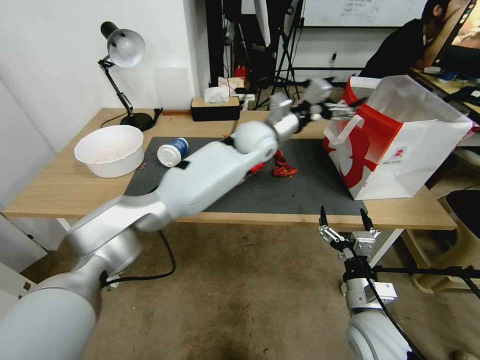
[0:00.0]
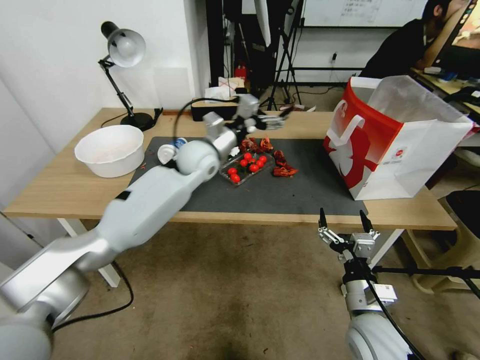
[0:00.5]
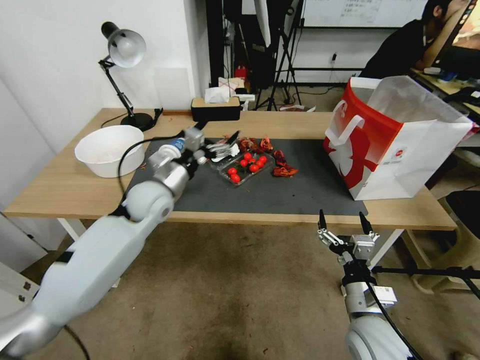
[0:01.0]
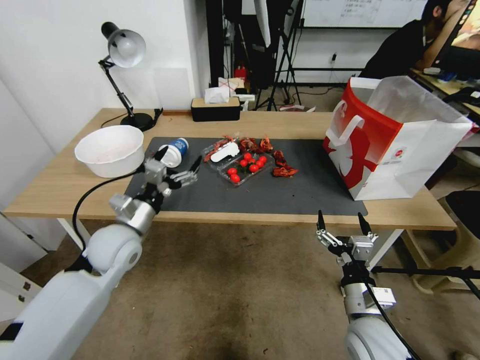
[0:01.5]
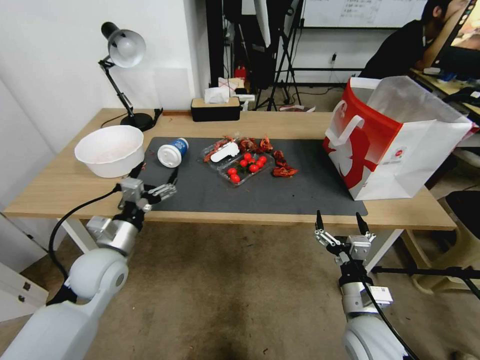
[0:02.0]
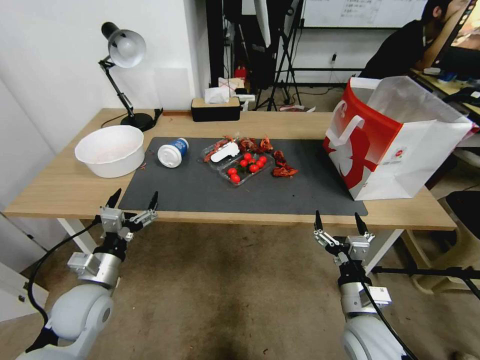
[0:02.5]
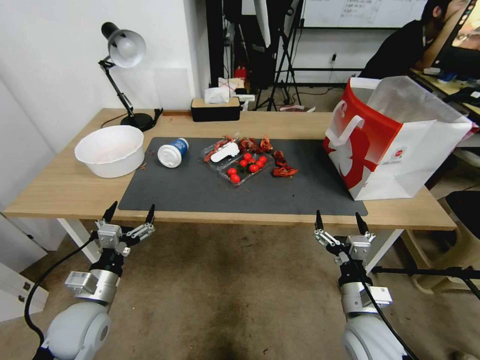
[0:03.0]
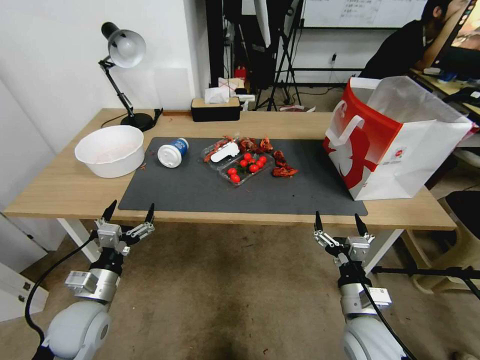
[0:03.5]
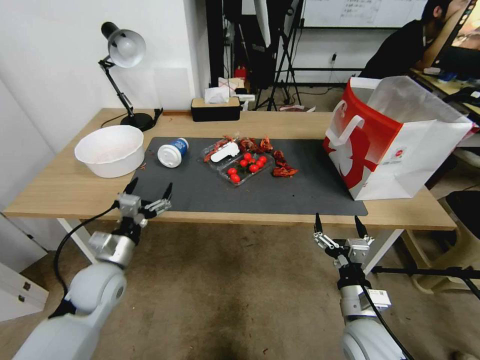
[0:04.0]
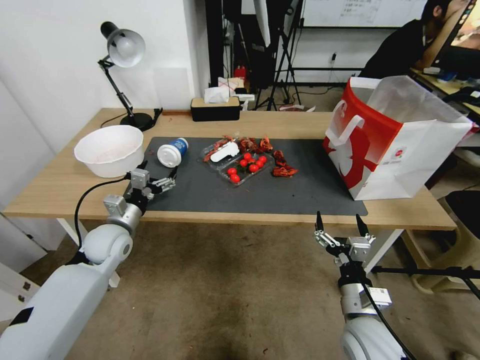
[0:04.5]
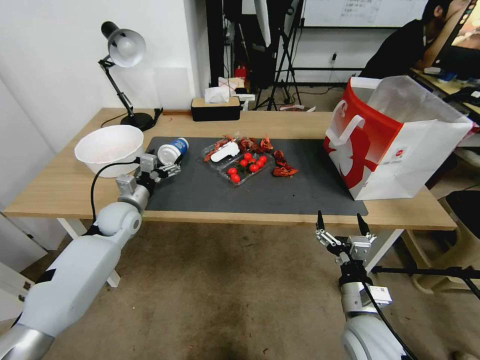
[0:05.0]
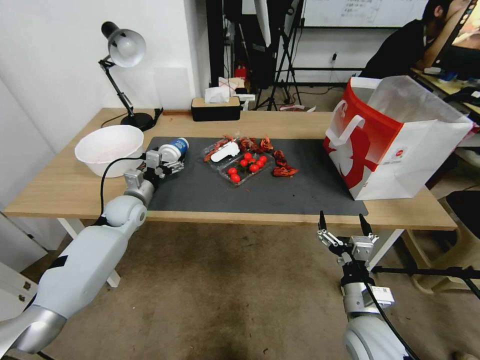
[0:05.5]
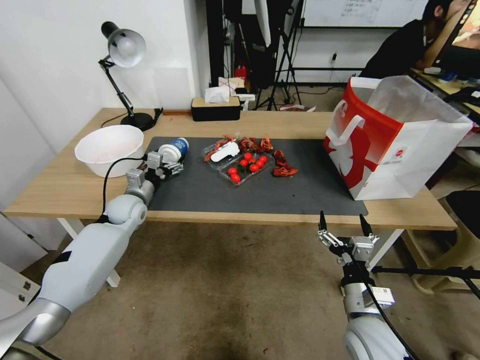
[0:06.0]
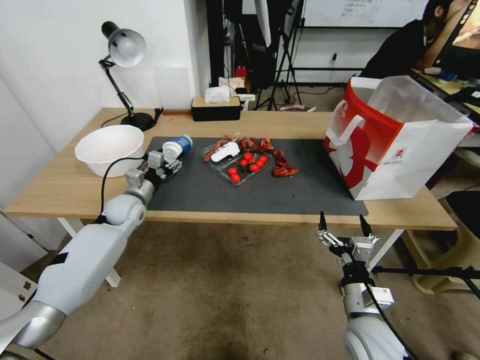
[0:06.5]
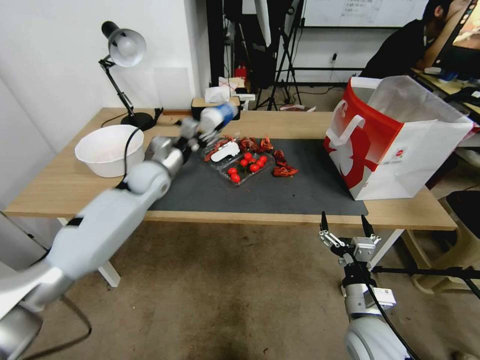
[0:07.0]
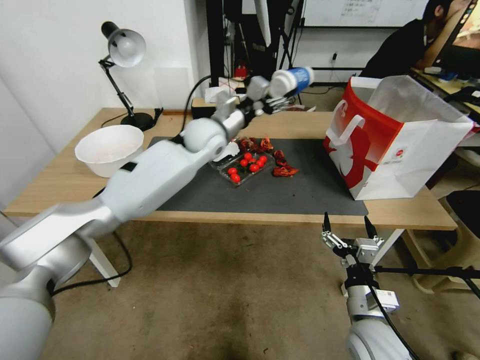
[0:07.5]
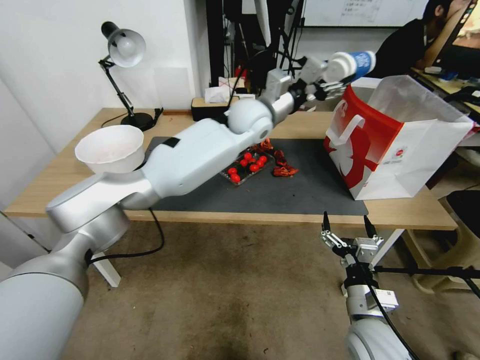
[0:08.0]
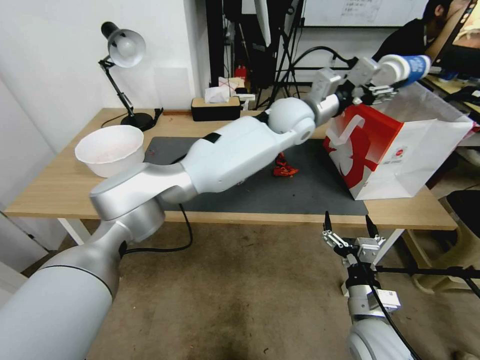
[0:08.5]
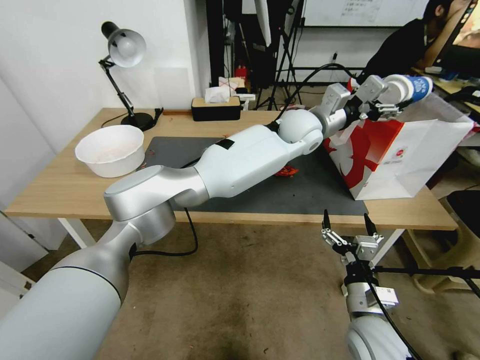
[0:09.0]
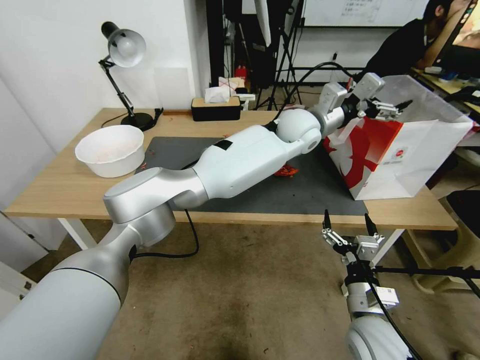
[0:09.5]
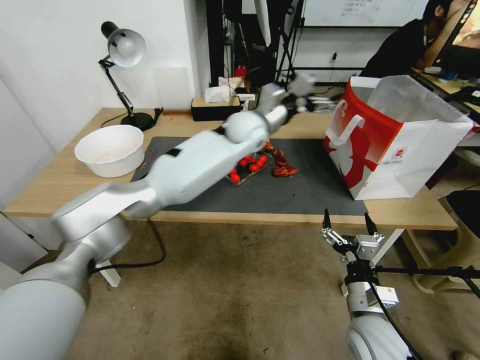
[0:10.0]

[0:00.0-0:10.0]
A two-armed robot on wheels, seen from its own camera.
0:00.0 to 0:02.0: The left gripper goes approximately 40 cm to the left, backward and downward.
0:02.0 to 0:04.0: The left gripper goes backward and returns, roughly 10 cm each way.
0:04.0 to 0:06.0: The left gripper heads forward, covering roughly 20 cm.
0:06.0 to 0:08.0: The left gripper shifts approximately 35 cm to the right and upward, and closes its fingers.
0:08.0 to 0:10.0: The left gripper shifts some 10 cm to the right, and opens up.

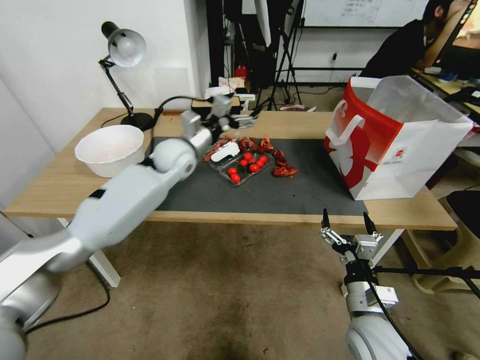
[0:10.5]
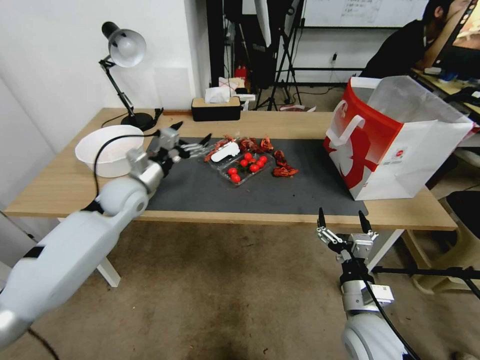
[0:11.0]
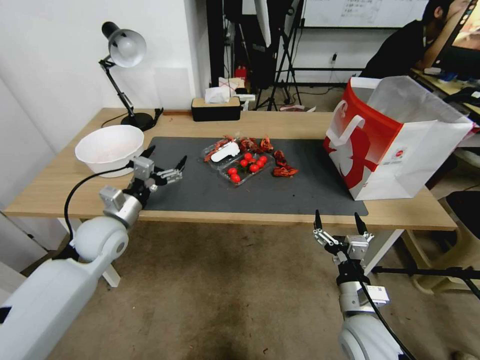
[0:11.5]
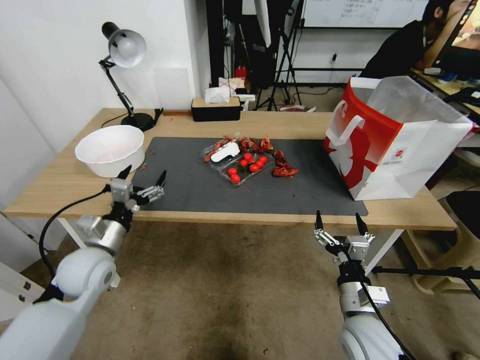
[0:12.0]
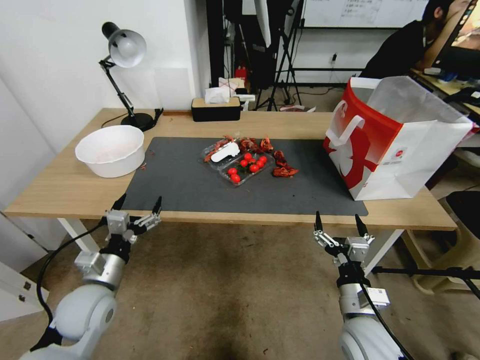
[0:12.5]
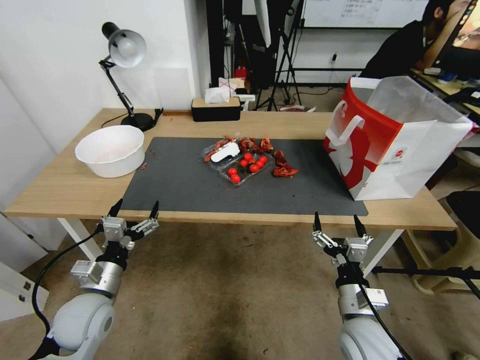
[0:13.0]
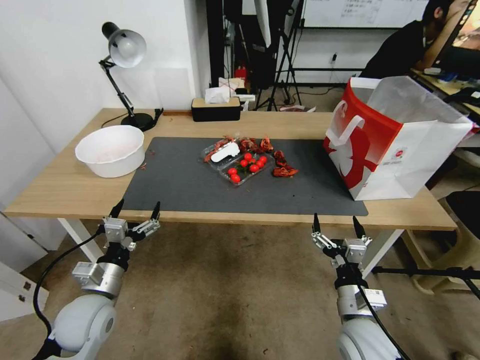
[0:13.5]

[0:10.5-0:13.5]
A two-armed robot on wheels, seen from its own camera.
0:10.5 to 0:12.0: The left gripper moves backward, to the left and downward, approximately 30 cm.
0:12.0 to 0:13.5: The left gripper is displaced backward and downward by approximately 10 cm.

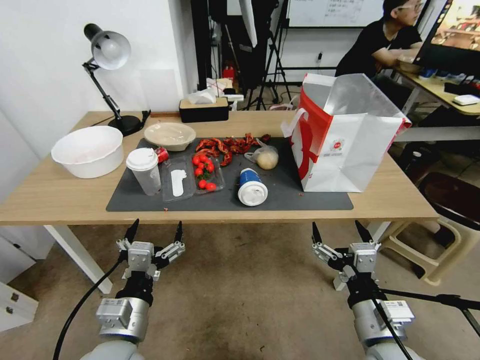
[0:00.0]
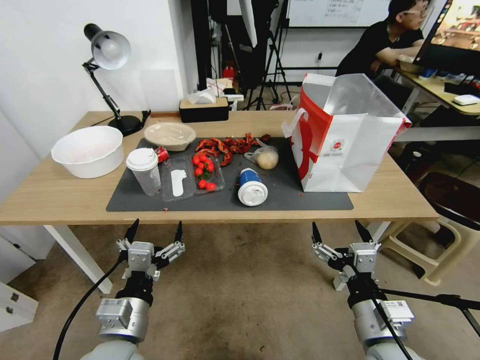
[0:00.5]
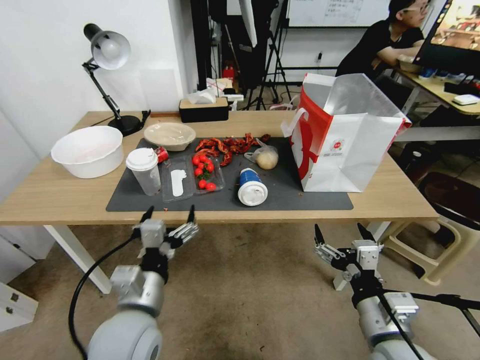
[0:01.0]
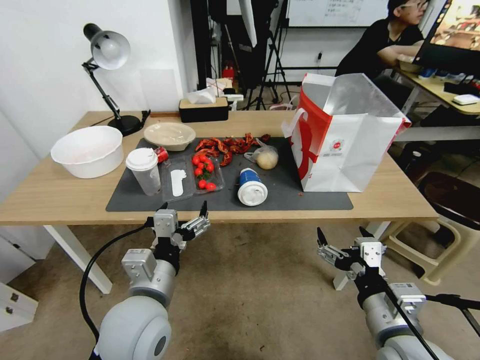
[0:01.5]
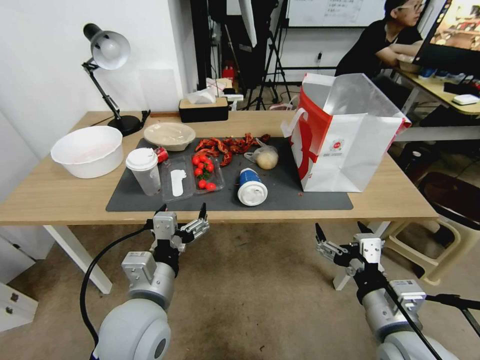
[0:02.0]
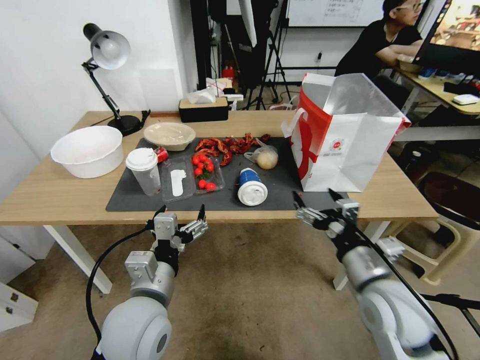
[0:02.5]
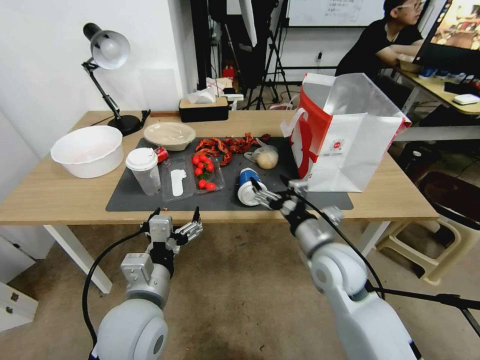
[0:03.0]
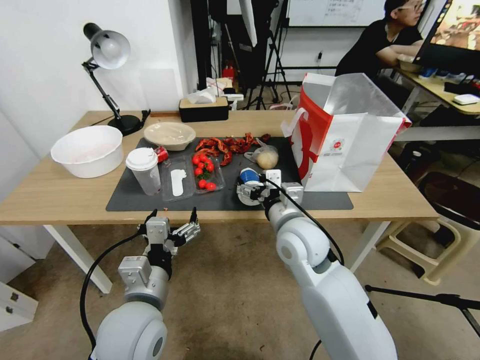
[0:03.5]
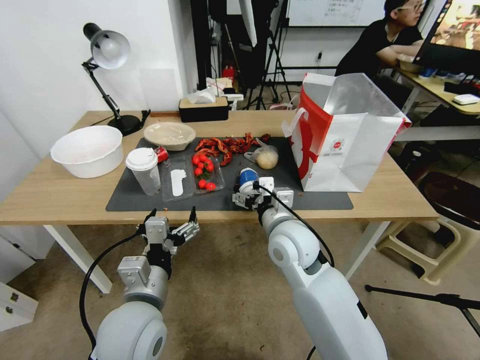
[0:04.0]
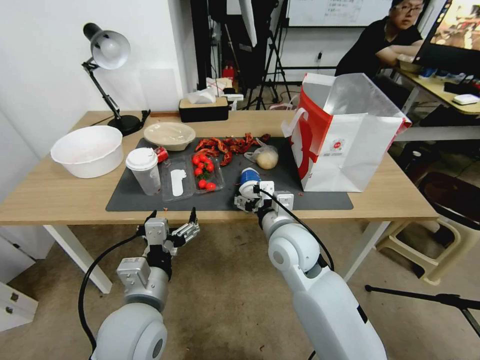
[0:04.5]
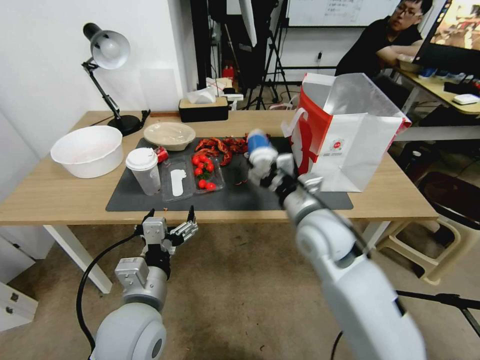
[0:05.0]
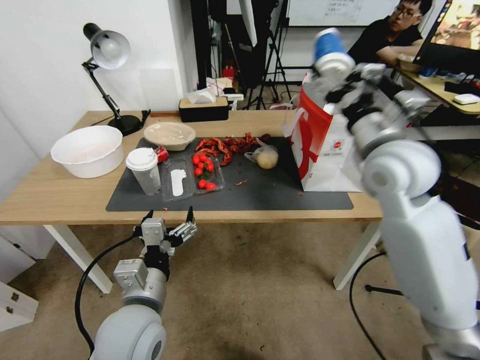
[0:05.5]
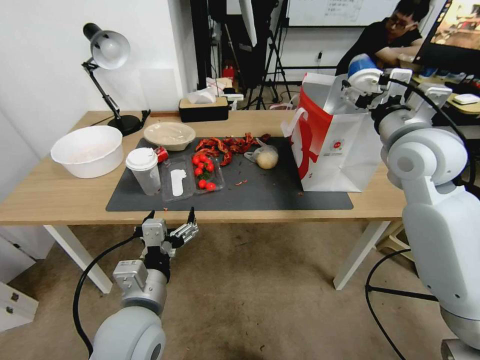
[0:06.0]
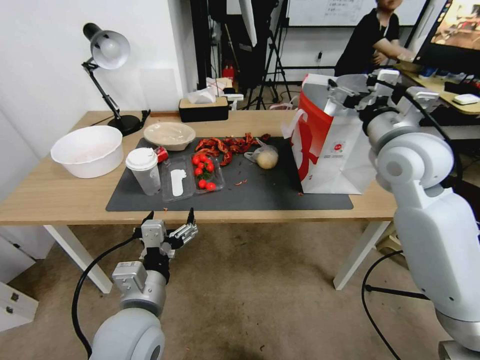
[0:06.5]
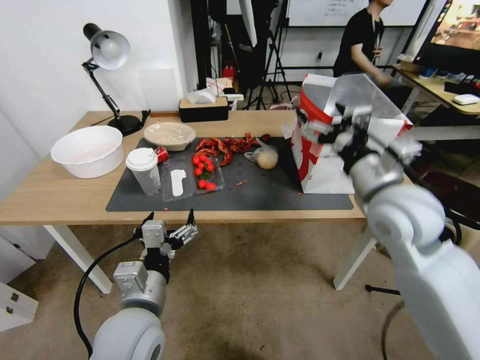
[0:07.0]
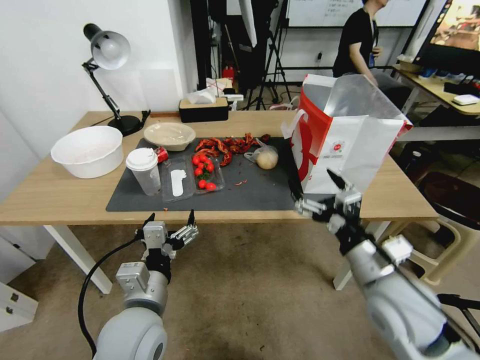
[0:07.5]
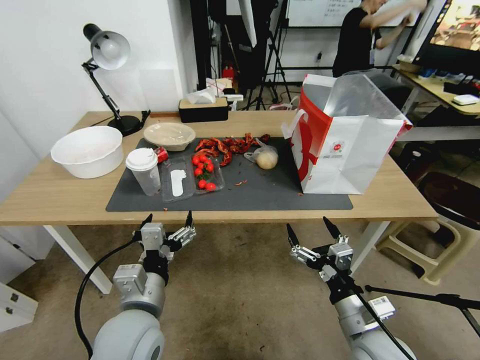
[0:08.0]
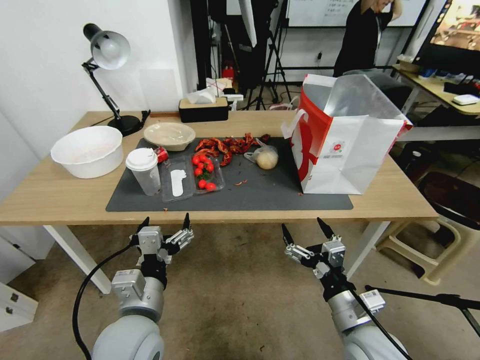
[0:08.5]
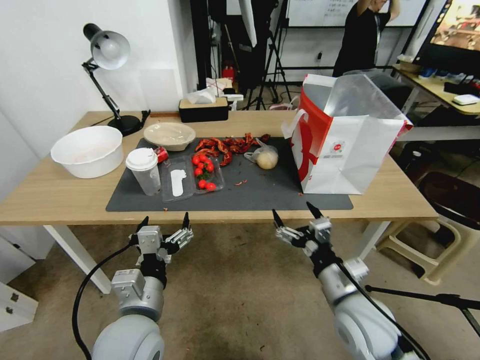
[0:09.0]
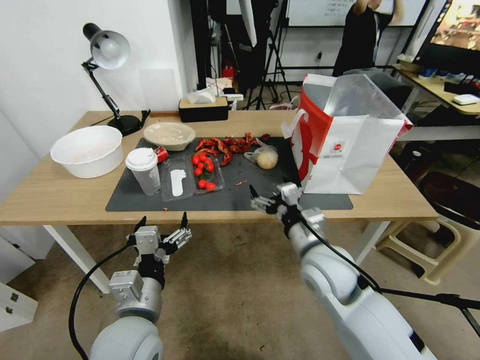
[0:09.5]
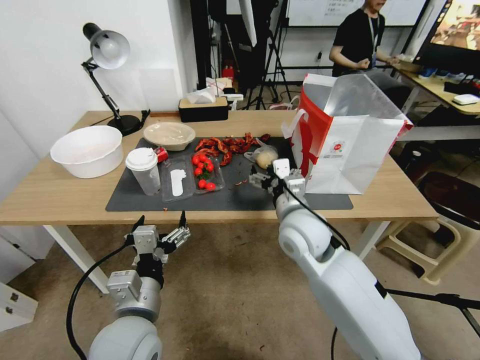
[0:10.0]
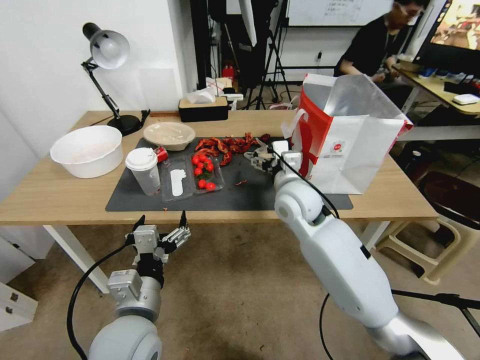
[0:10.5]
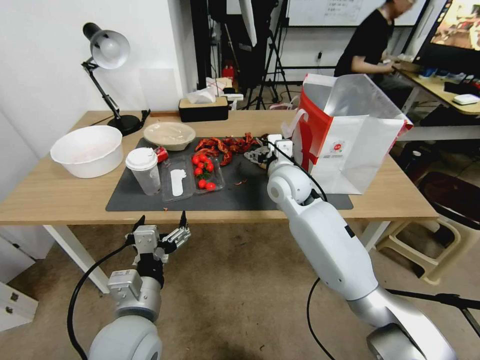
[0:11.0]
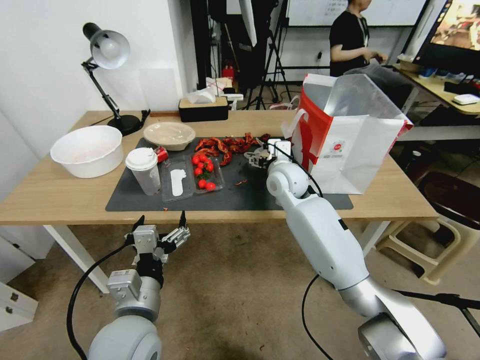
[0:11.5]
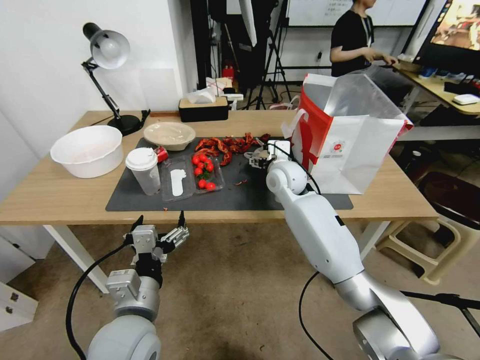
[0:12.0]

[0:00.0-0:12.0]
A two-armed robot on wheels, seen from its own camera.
0:02.0 to 0:04.0: The right gripper shifts approximately 25 cm forward and to the left.
0:04.0 to 0:06.0: The right gripper is displaced to the right and upward by roughly 25 cm.
0:06.0 to 0:08.0: The right gripper travels downward and backward by about 35 cm.
0:08.0 to 0:10.0: The right gripper travels forward, to the left and upward by some 25 cm.
0:10.0 to 0:12.0: The right gripper shifts roughly 15 cm forward.
